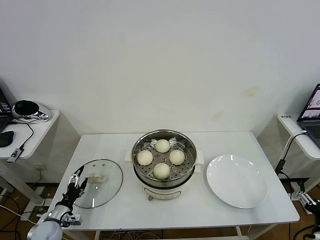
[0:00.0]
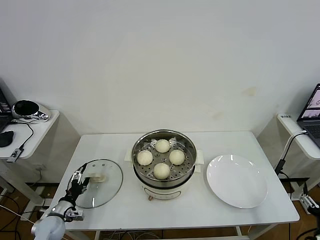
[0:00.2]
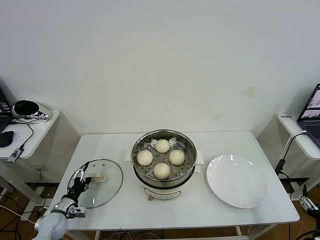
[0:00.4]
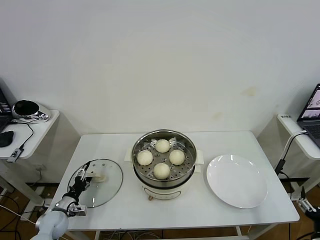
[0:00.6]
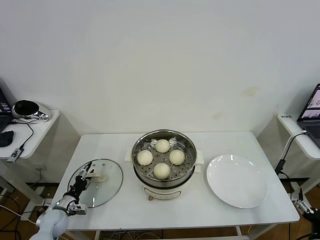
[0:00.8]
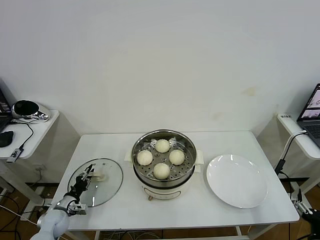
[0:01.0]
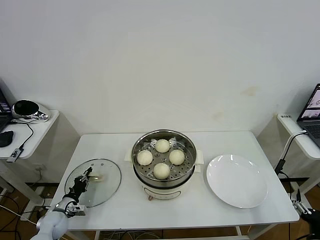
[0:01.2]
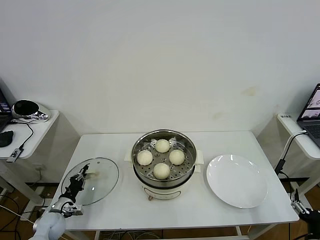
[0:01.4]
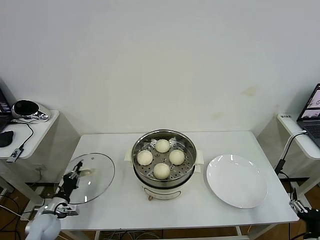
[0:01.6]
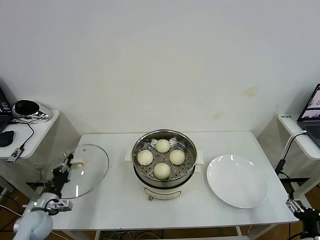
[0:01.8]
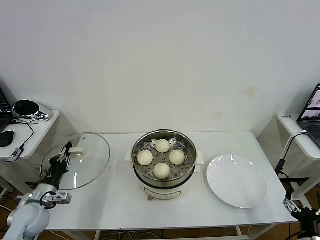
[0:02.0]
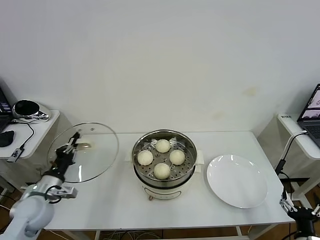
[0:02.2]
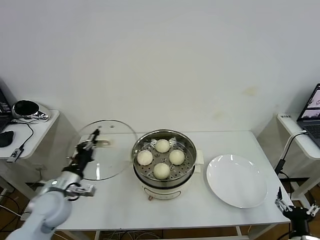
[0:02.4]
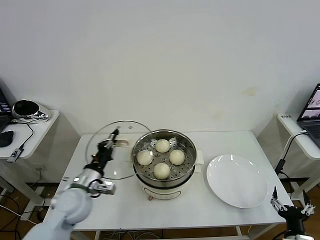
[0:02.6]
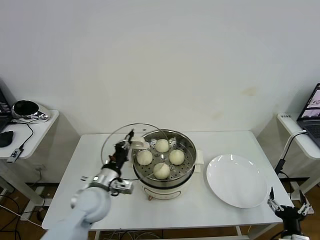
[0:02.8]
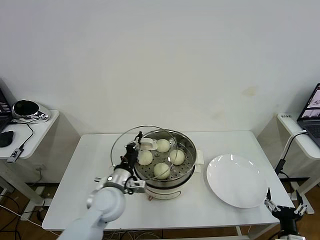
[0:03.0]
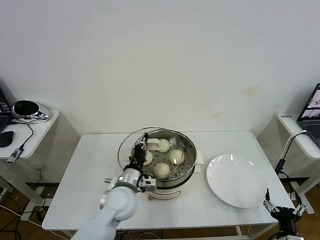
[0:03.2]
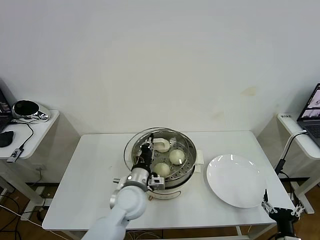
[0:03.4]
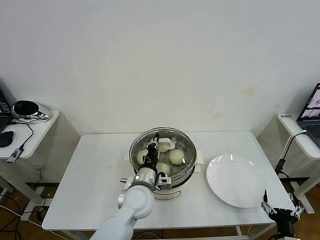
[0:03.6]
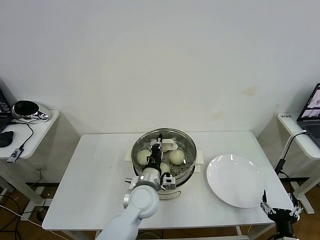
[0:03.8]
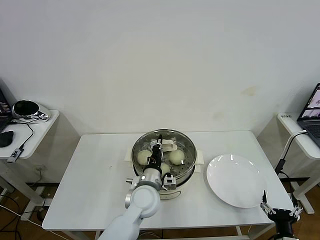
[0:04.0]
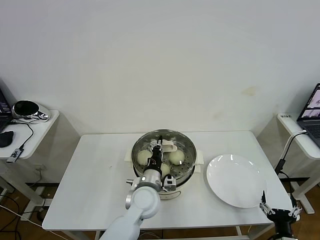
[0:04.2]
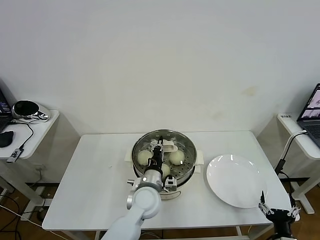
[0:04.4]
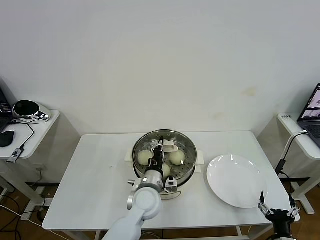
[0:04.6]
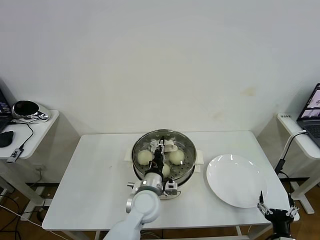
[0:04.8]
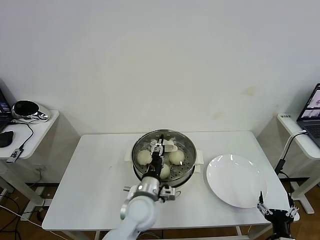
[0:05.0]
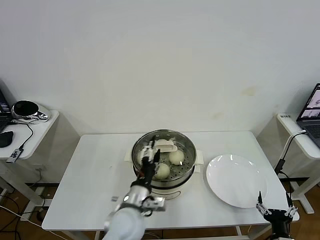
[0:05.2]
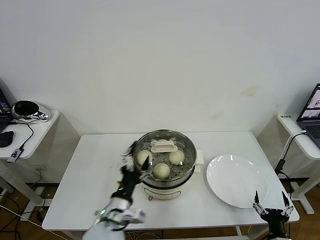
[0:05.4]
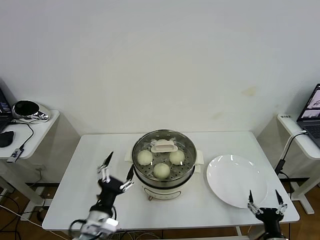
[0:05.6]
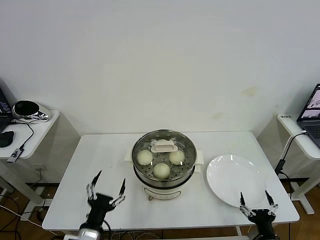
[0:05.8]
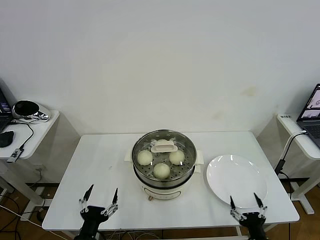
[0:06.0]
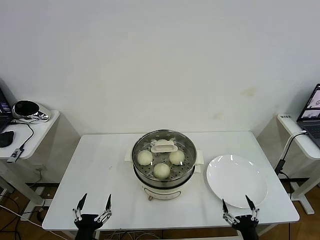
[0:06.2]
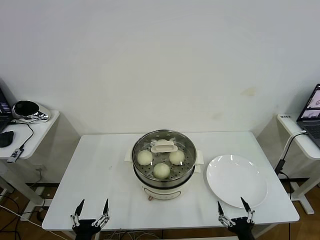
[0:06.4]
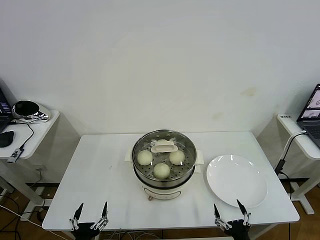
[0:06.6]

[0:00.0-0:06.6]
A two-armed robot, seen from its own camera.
Task of the whole recording: take steamed baozi put them in steamer then cover it.
Step, 0:01.6 to 0:05.2: Place the pot lid on the steamer with left gripper.
0:00.0 to 0:01.6: The left gripper closes up.
0:01.6 to 0:03.2: The right gripper goes approximately 5 cm to the left. Meanwhile the left gripper goes some 35 cm to the right and upward.
0:03.2 to 0:05.0: The left gripper heads to the right, covering about 5 cm, and opens its fingers.
0:05.0 to 0:06.6: The left gripper shifts approximately 30 cm backward and to the left, and opens up. The right gripper shifts about 10 cm to the left.
